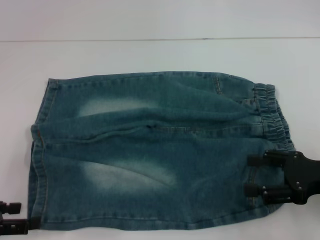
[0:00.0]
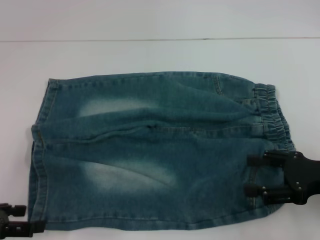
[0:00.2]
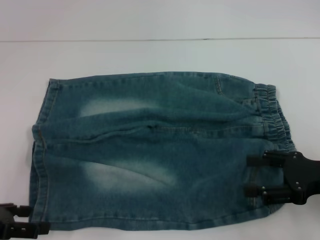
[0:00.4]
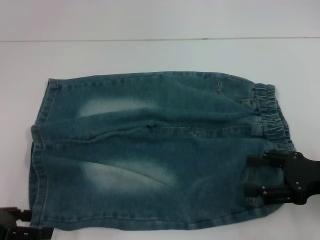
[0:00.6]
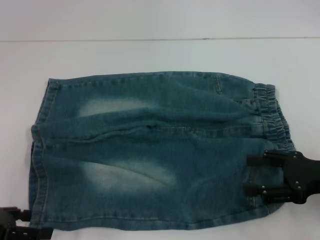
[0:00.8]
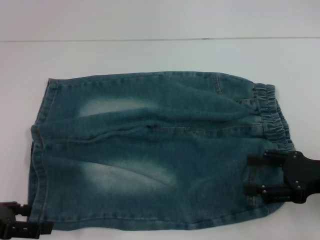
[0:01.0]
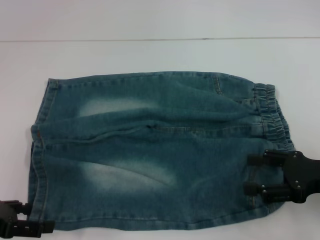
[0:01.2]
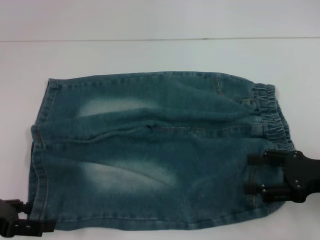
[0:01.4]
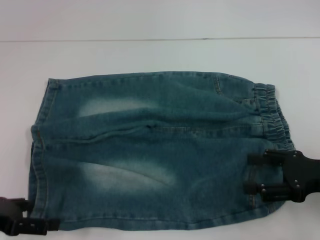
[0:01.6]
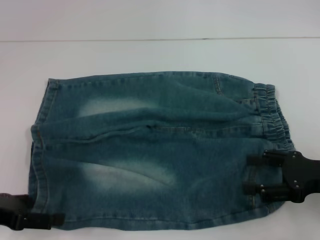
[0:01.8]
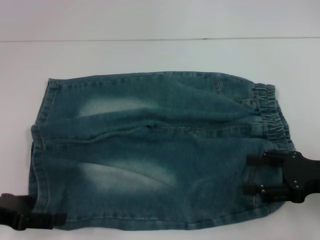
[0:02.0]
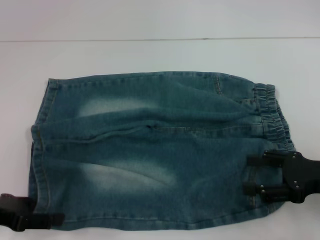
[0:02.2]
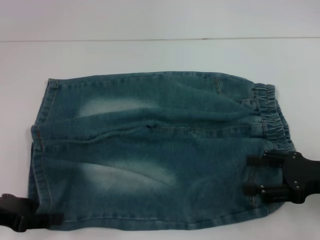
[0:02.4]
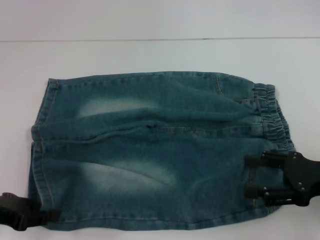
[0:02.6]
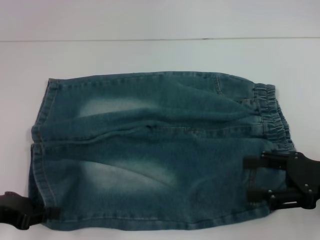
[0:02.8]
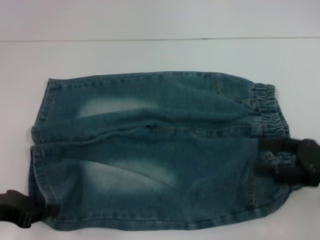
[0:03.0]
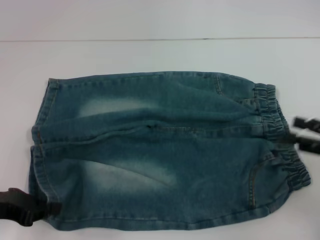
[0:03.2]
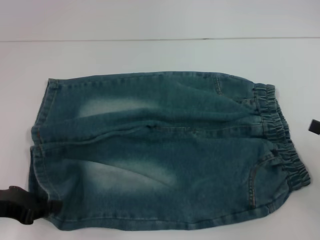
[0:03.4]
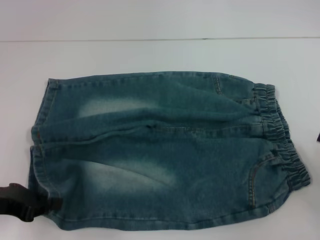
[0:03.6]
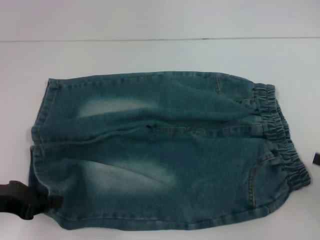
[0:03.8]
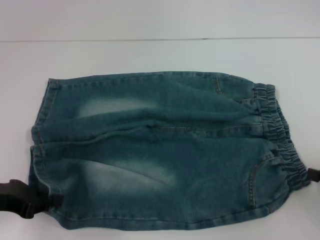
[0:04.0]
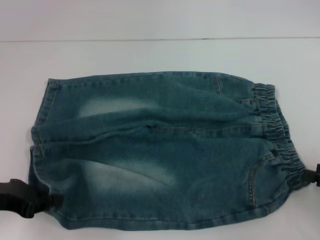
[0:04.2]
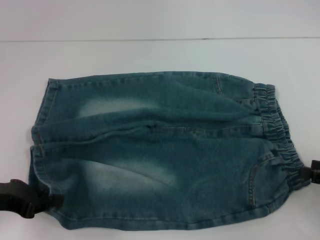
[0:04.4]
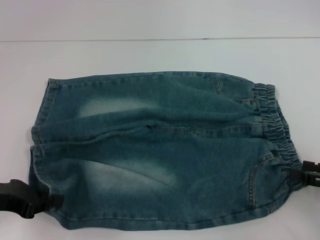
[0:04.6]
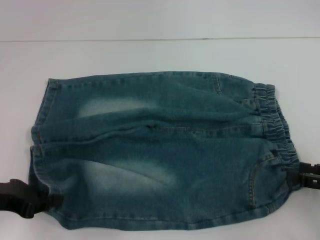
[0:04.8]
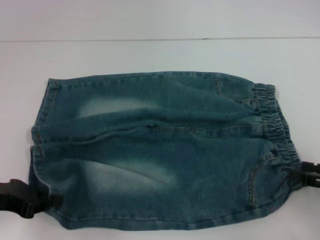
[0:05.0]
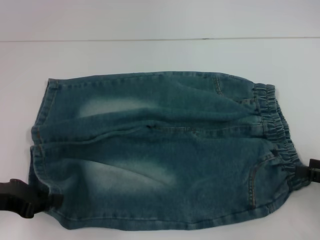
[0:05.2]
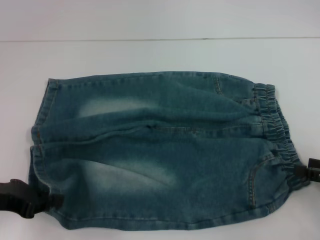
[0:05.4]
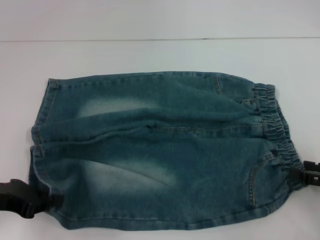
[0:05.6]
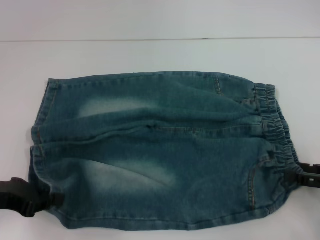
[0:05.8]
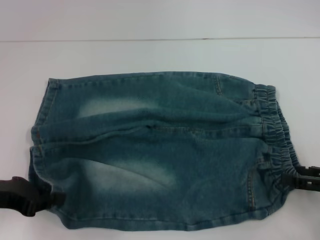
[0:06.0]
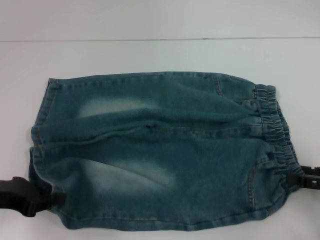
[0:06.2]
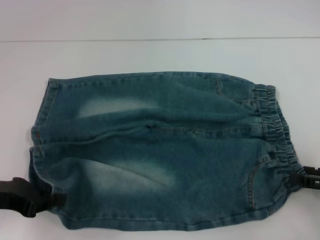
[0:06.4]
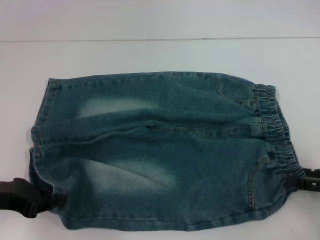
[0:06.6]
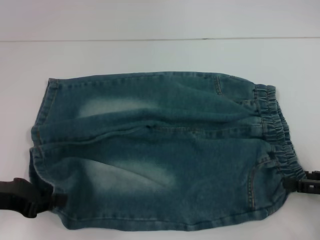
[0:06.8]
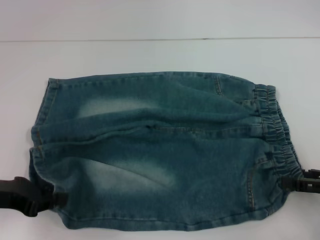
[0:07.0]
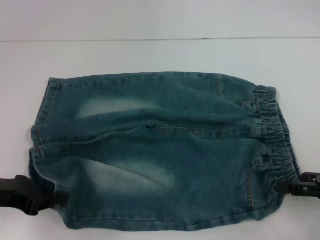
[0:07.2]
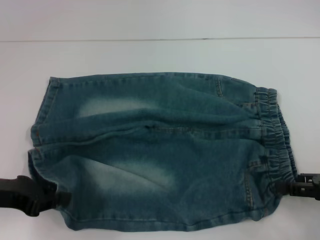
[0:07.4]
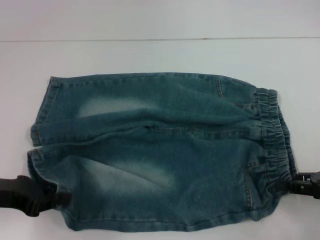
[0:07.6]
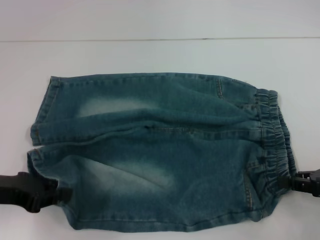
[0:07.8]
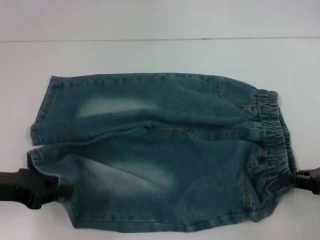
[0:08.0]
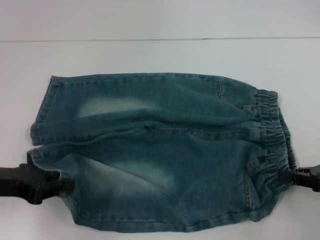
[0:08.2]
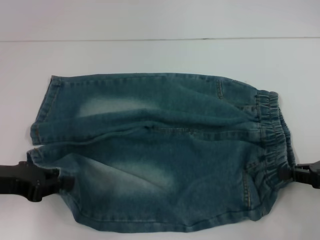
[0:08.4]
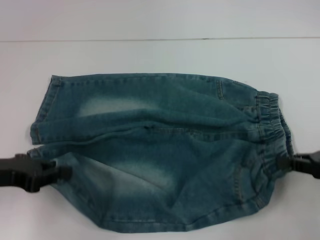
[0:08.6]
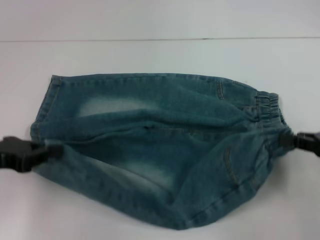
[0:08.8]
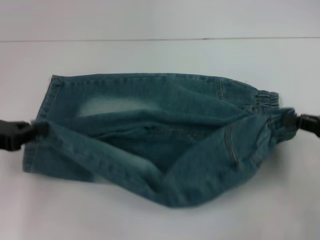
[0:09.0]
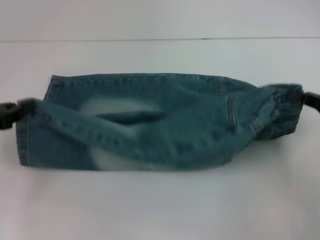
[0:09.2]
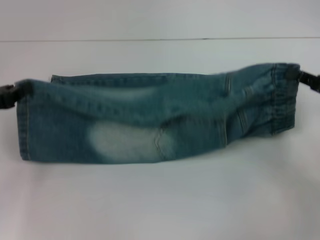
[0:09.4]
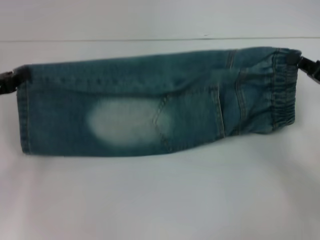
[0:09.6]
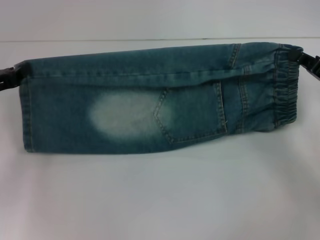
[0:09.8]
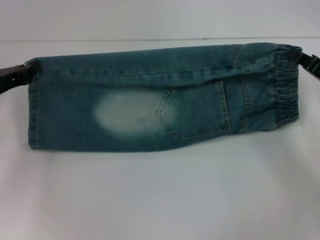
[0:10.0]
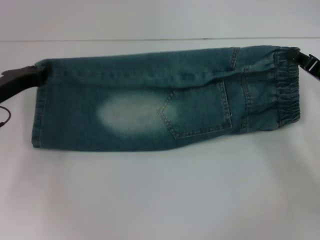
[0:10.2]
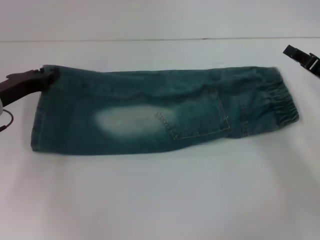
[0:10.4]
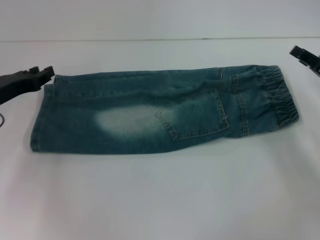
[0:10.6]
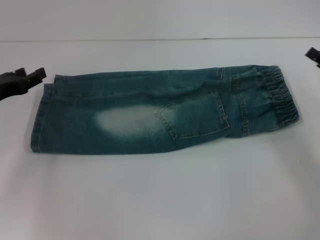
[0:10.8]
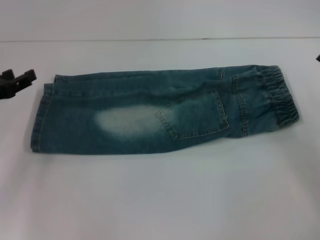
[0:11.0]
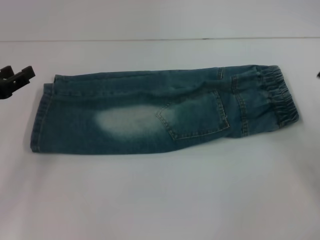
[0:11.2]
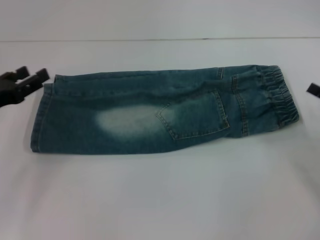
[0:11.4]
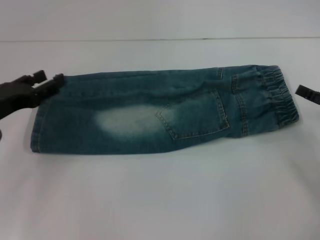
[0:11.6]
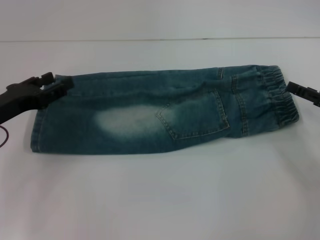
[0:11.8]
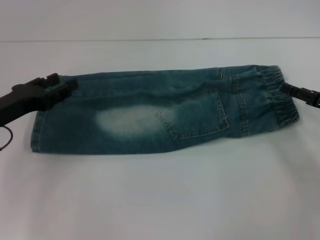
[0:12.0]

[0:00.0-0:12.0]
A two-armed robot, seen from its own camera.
Step, 0:00.0 to 0:02.8: Grab the lower left pant leg with your left hand.
Step, 0:03.0 to 0:07.4: Hold the lower right waistband with your right hand.
Step, 0:07.8 to 0:10.4: Fold upward with your right hand.
0:00.0 to 0:01.6: The grippers make only small movements.
0:01.6 to 0:03.0: The left gripper closes up.
0:03.0 to 0:04.4: The right gripper is displaced to the right by about 5 cm.
0:04.4 to 0:07.6: The grippers move only a little.
0:07.6 to 0:09.0: The right gripper closes.
0:09.0 to 0:10.4: The two grippers go approximately 10 cm forward.
0:10.4 to 0:12.0: The right gripper opens its fingers; the left gripper ends up roughly 5 cm from where it was, and opens its fingers.

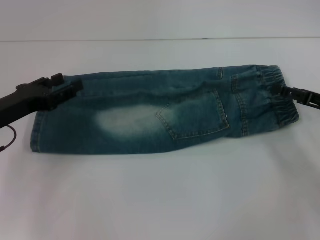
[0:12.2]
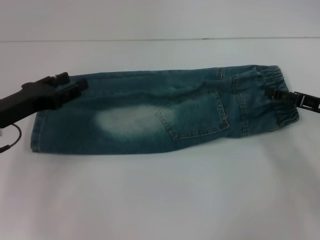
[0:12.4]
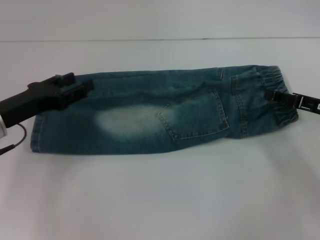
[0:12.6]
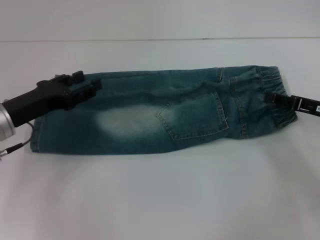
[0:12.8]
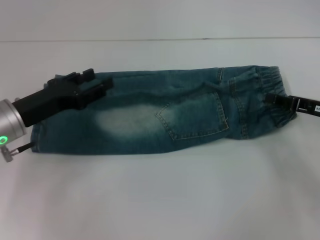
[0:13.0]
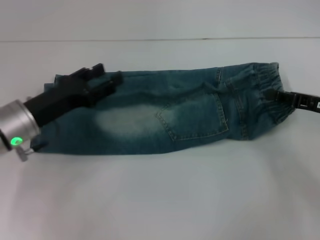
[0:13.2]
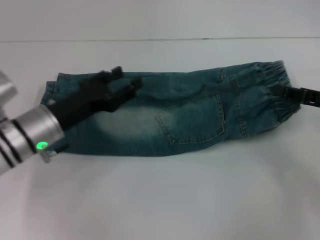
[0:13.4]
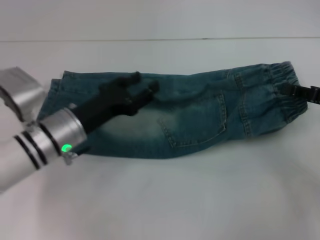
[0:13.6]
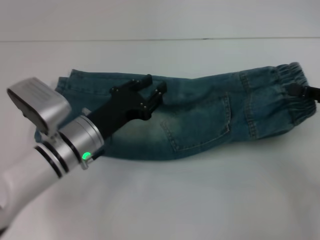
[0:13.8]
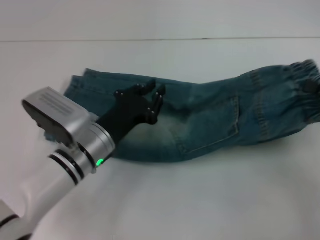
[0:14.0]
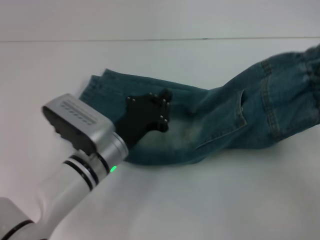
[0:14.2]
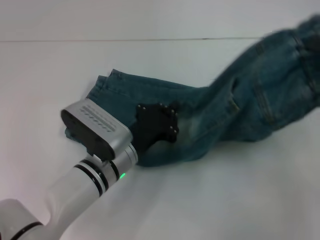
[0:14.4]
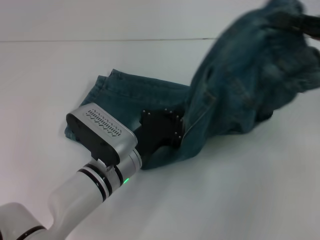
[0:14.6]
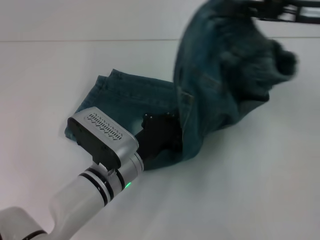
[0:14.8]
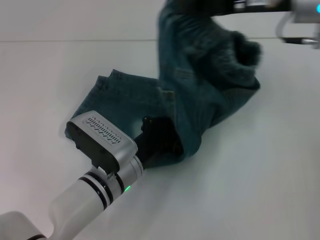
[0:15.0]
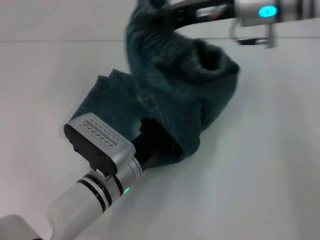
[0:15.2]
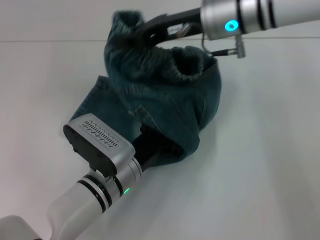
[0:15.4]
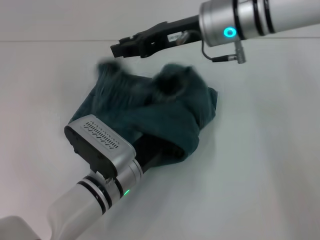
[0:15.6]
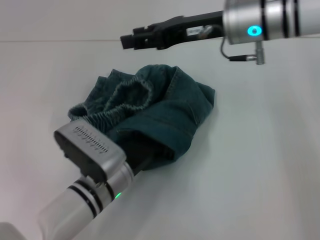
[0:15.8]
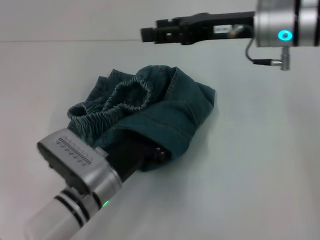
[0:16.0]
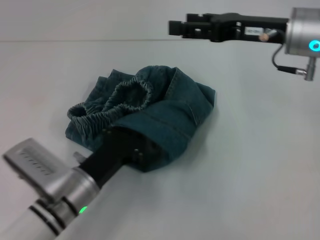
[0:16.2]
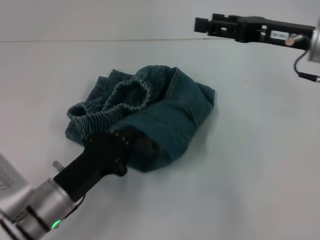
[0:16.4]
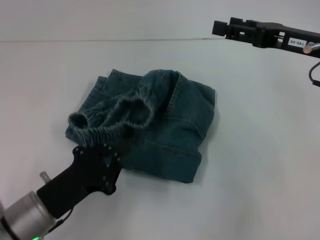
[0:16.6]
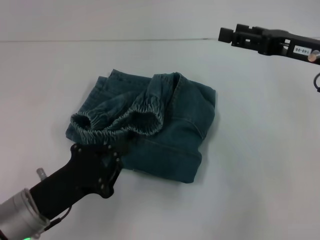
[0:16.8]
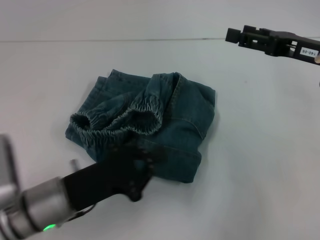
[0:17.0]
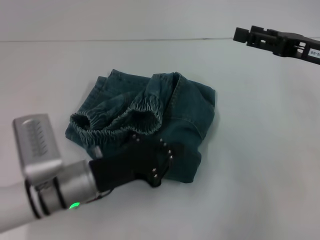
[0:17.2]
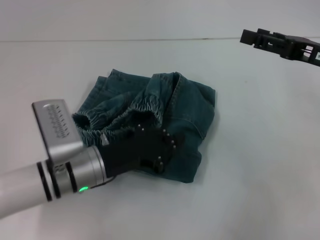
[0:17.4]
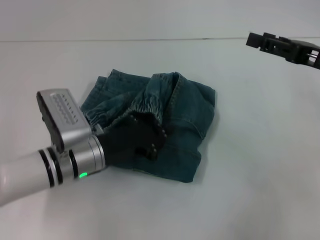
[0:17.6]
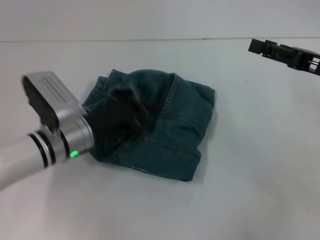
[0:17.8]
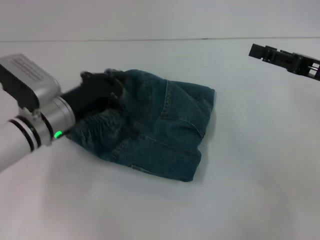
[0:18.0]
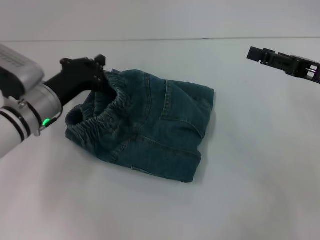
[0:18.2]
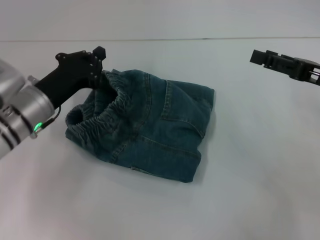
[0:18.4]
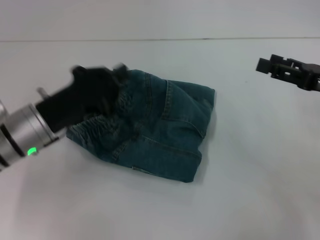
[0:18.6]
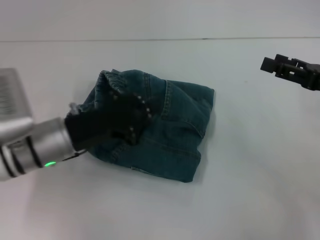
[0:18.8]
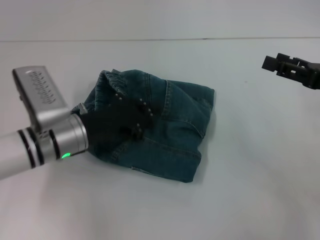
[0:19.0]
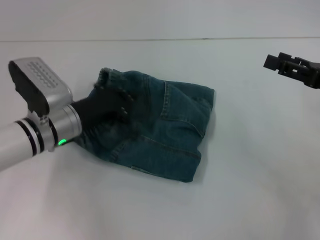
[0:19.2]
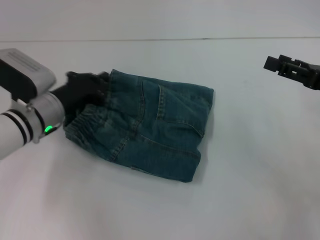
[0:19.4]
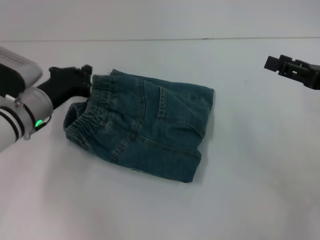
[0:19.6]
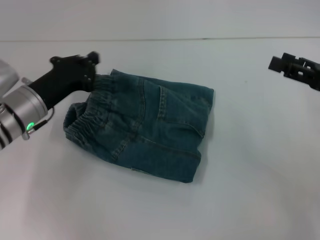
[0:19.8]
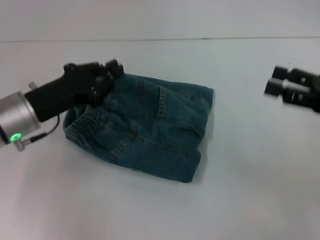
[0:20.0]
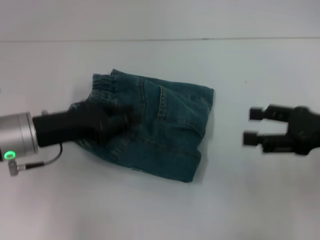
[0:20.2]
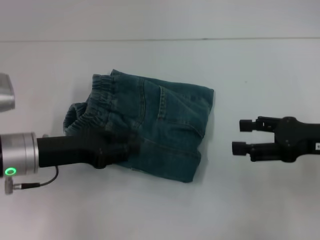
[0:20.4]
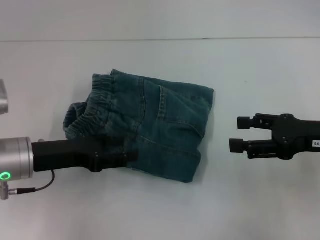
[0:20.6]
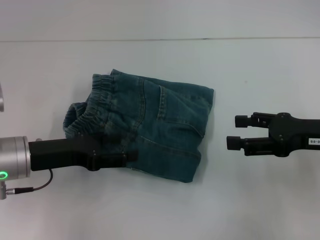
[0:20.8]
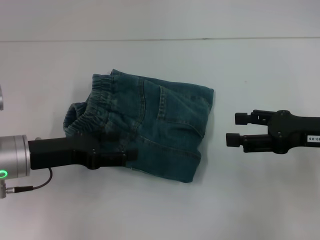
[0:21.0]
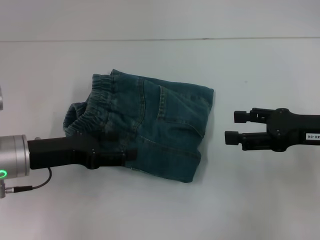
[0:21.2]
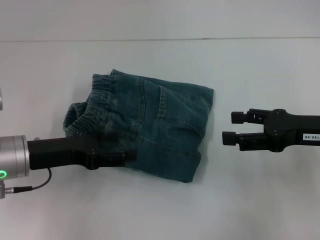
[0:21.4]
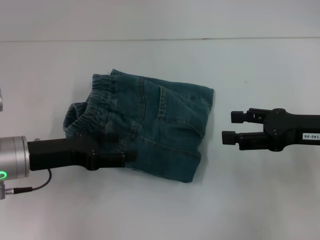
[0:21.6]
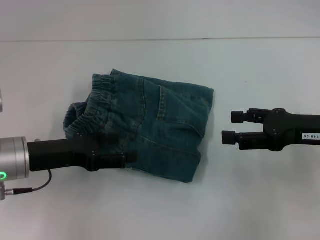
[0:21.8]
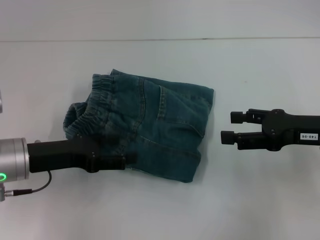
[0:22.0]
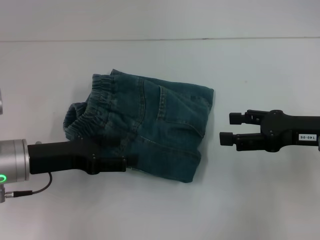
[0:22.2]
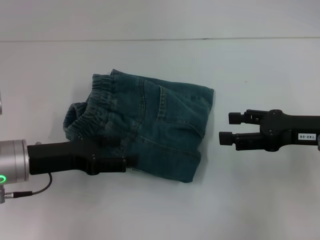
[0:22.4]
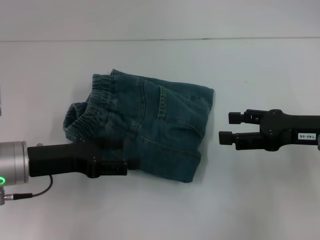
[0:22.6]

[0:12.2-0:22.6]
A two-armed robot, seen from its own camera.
Step, 0:13.0 to 0:15.8: Fold to the left with your right hand.
Step, 0:16.4 to 0:19.4: Adjust the pants with your left hand.
0:12.2 to 0:13.6: The right gripper closes up; the left gripper moves to the right, approximately 10 cm.
0:13.6 to 0:15.2: The left gripper is displaced to the right and backward by roughly 10 cm, and closes; the right gripper is displaced to the left, upward and forward by some 25 cm.
0:15.2 to 0:16.6: The right gripper heads to the right, backward and downward, covering some 15 cm, and opens its fingers, while the left gripper heads to the left and backward, covering some 15 cm.
0:16.6 to 0:18.2: The right gripper moves approximately 5 cm, while the left gripper moves forward, about 15 cm.
0:19.6 to 0:21.2: The left gripper is displaced backward by roughly 10 cm, and opens up.
0:21.2 to 0:22.6: Both grippers stay about where they are.
